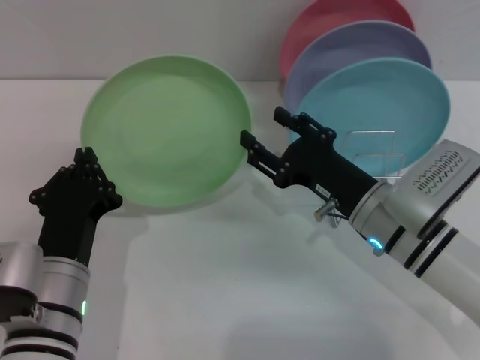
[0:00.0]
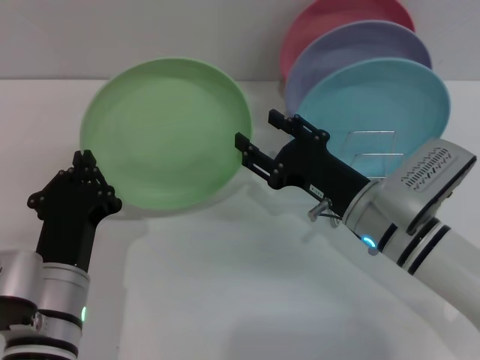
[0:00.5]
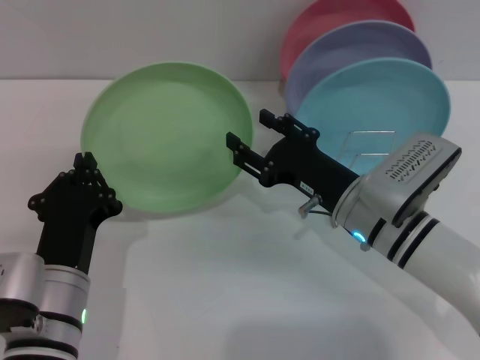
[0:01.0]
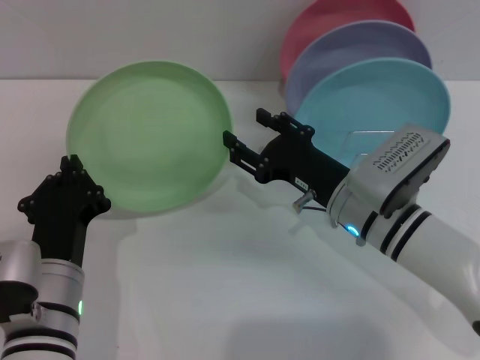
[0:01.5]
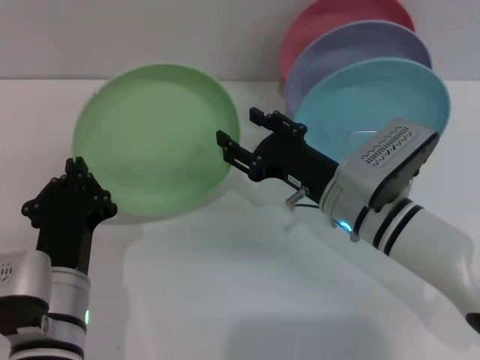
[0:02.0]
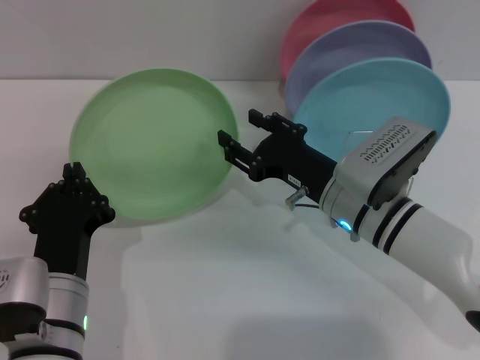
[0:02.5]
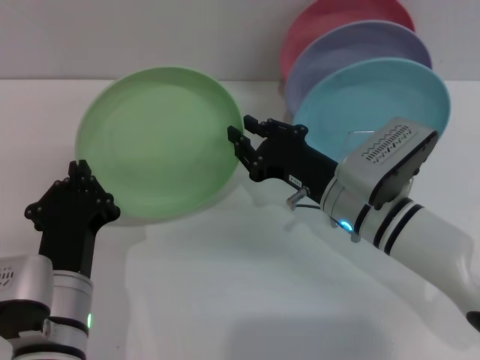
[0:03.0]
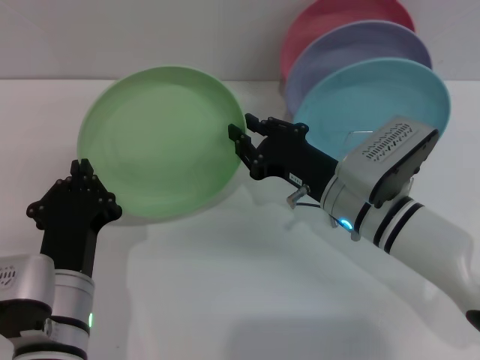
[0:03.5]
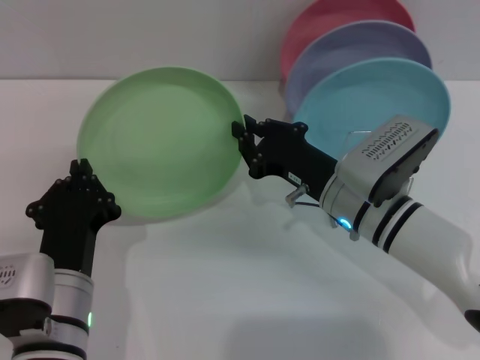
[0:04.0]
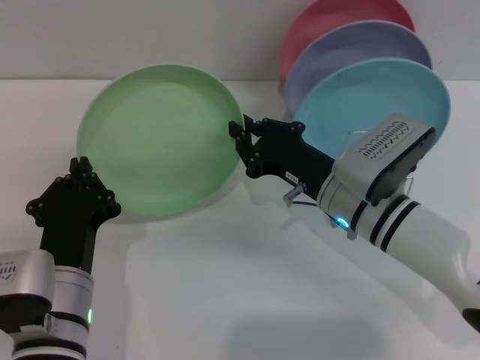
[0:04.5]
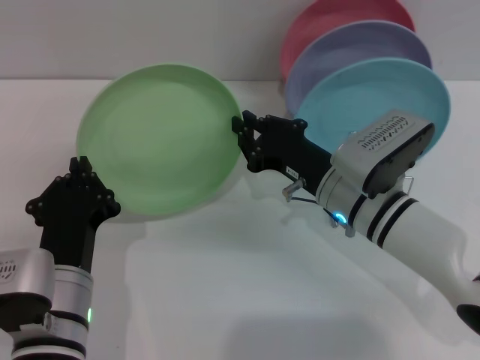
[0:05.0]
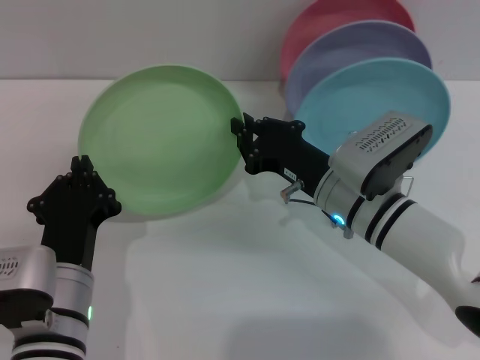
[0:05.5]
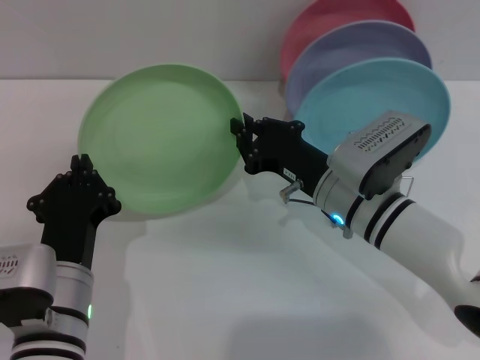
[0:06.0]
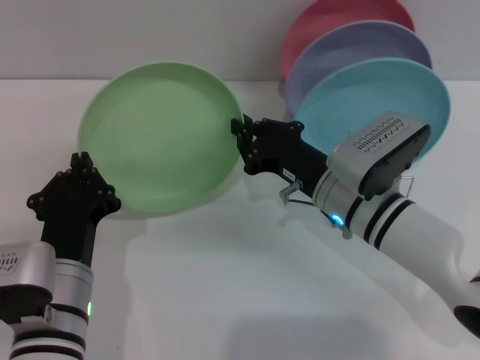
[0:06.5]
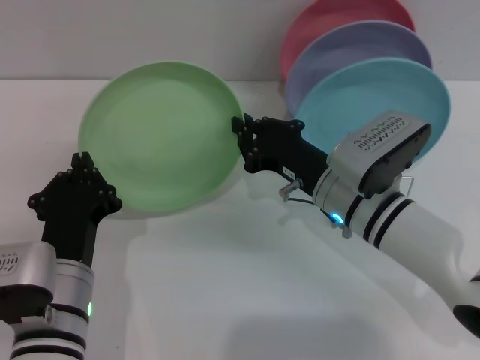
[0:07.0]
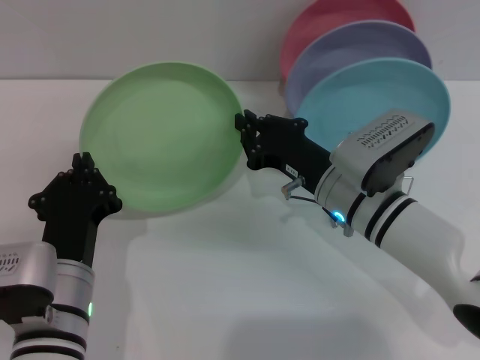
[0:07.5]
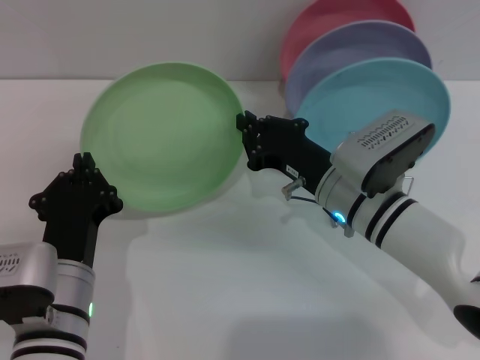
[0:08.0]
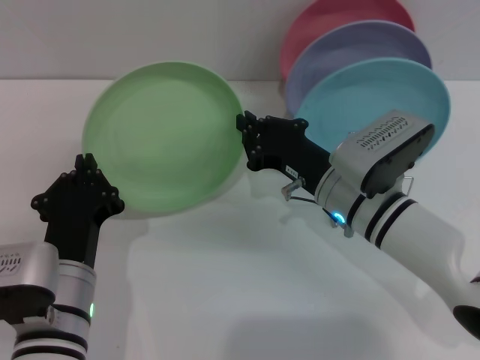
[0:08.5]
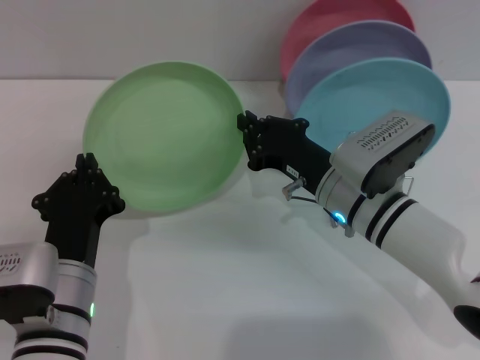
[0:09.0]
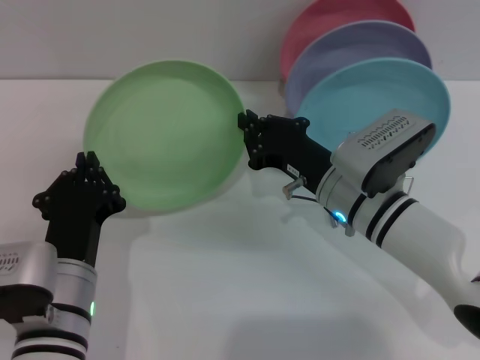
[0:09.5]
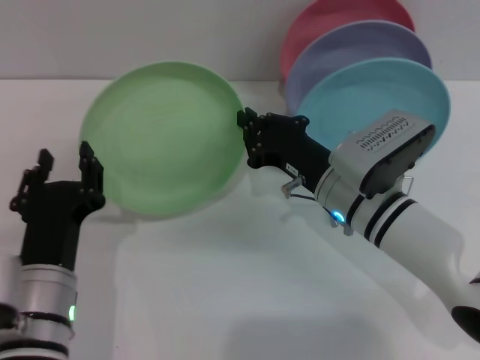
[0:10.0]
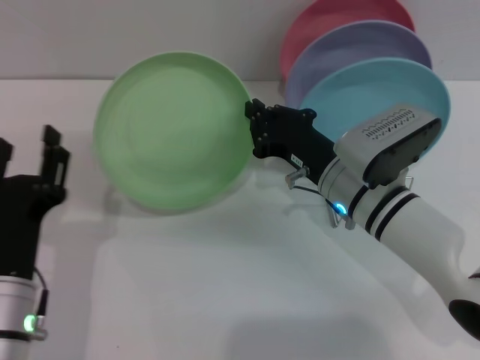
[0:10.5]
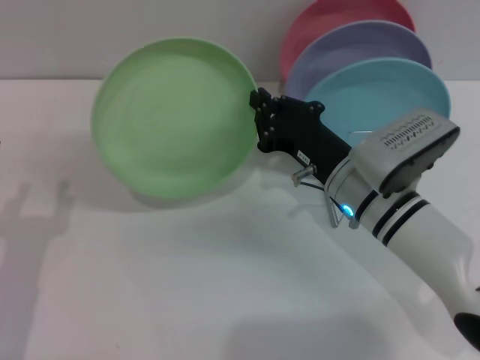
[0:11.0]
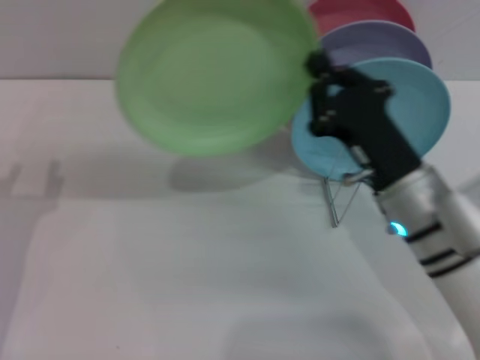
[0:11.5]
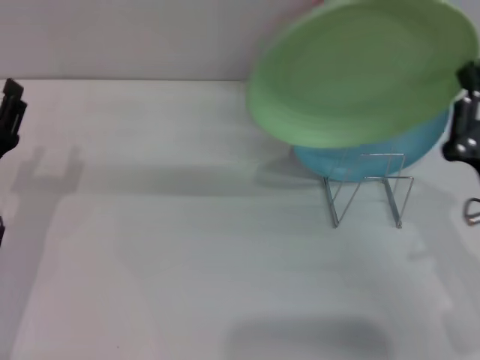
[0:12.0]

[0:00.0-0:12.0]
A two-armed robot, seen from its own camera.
Task of the whole recording: Grip the plate with one hand, pass it to the other, then set it on the shelf.
Step, 0:00.0 to 0:10.0: Pass the plate from the left gripper to the right gripper.
0:00.0 to 0:02.0: The grippers move only a little.
0:02.0 to 0:04.0: The right gripper closes.
0:04.0 to 0:08.0: Neither gripper changes place.
0:08.0 to 0:10.0: The left gripper opens its fingers.
0:10.0 to 0:12.0: The left gripper heads to the left and forward, covering some 10 cm, and opens; the right gripper goes some 15 cm to the right and backward.

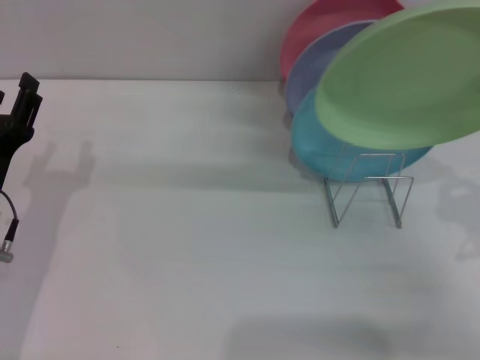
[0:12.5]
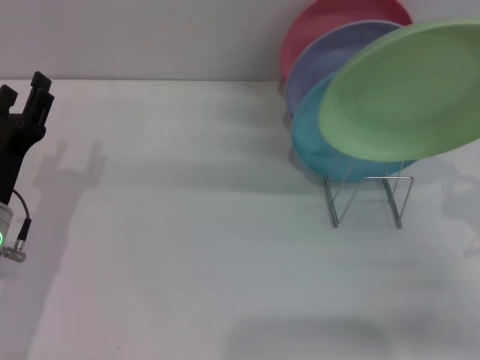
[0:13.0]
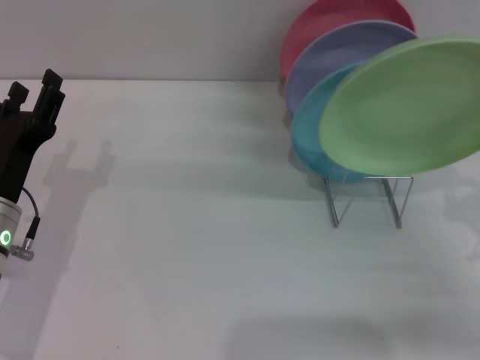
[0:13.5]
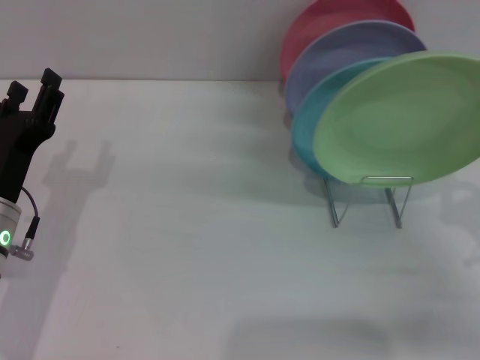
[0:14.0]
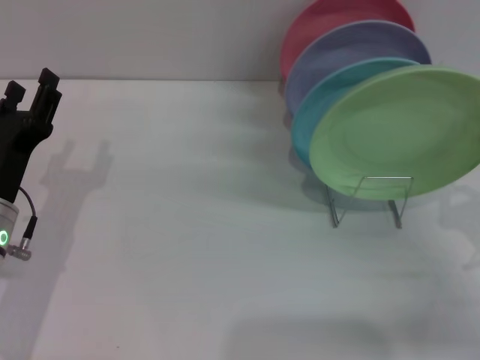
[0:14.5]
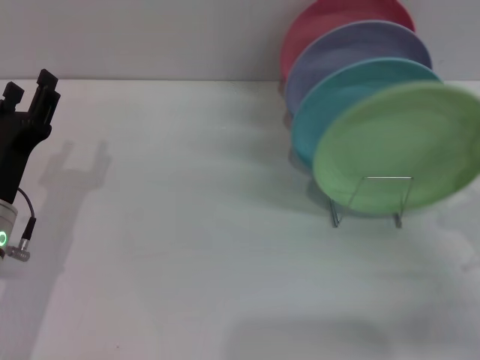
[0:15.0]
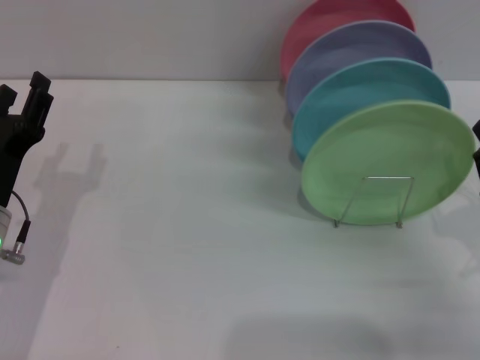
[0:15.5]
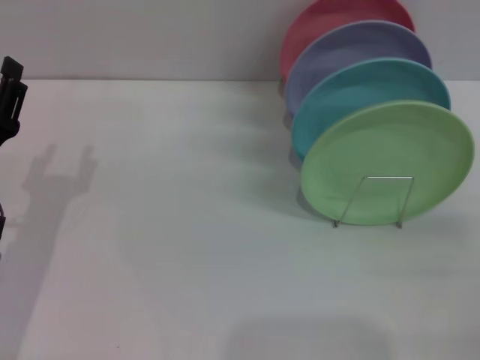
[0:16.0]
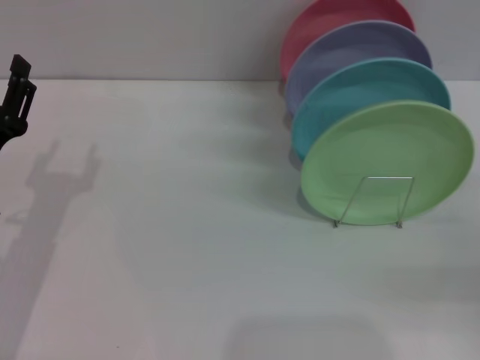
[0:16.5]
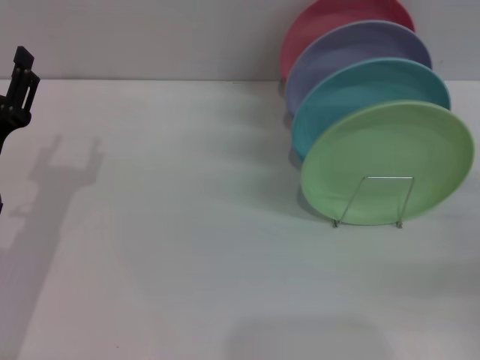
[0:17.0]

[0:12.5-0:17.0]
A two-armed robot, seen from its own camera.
Task of the whole recording: Grip the plate with one hand, pass it to the other, then set it on the shelf.
Step, 0:12.5 to 0:15.5: Place the plate on the shelf with the right gripper.
0:12.5 to 0:14.5: The grippers stay close to where they were, moving slightly.
0:14.5 to 0:17.0: The right gripper changes place by roughly 5 cm, and opens its fingers.
